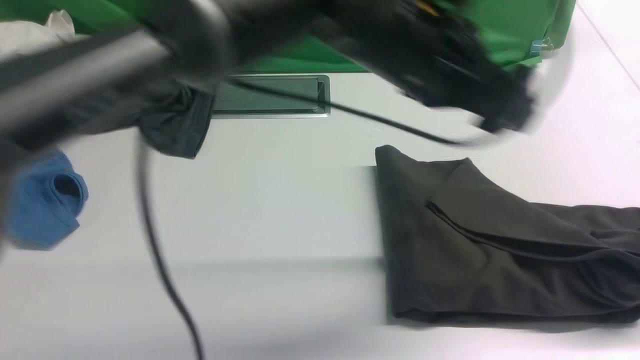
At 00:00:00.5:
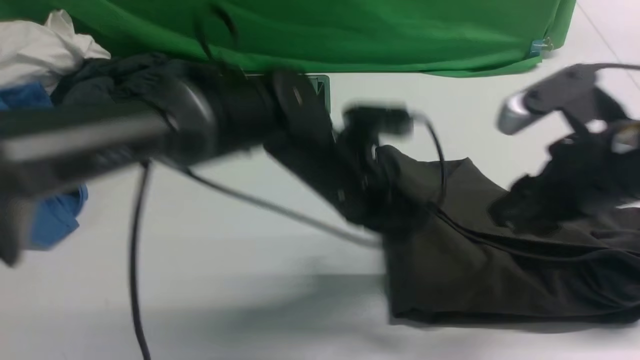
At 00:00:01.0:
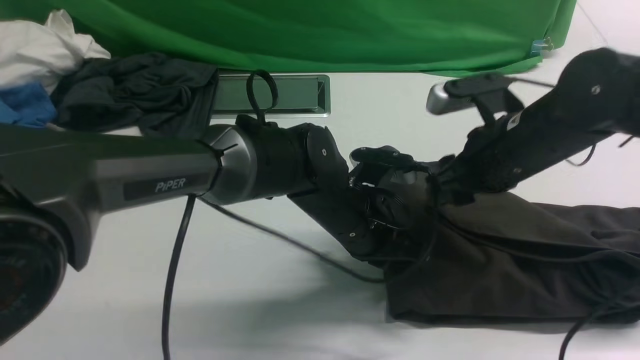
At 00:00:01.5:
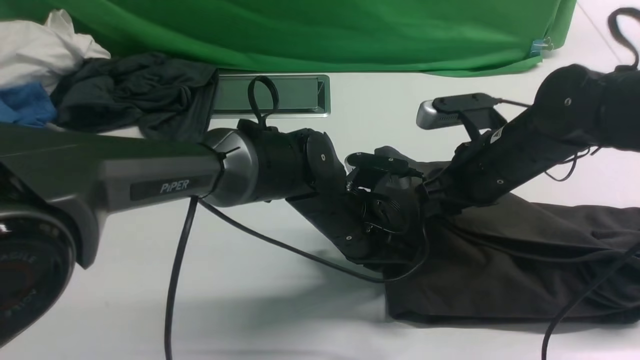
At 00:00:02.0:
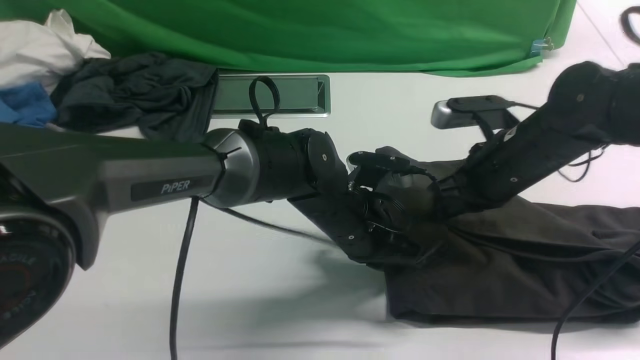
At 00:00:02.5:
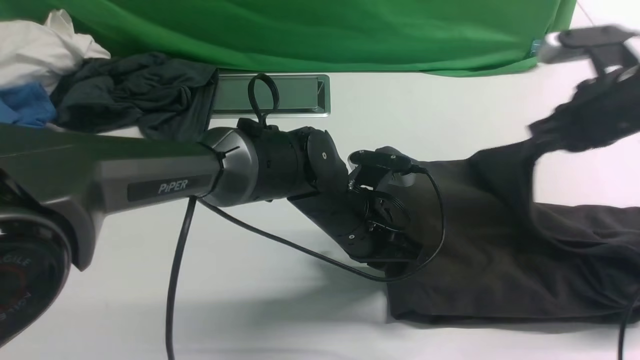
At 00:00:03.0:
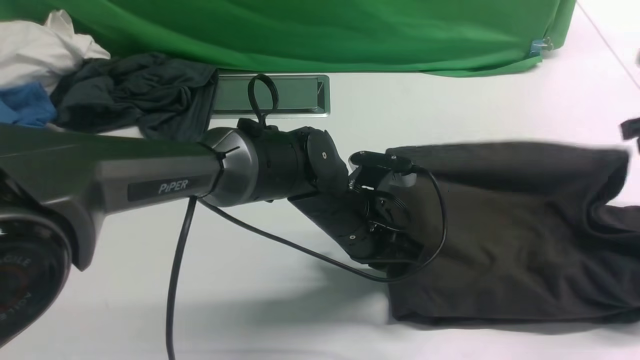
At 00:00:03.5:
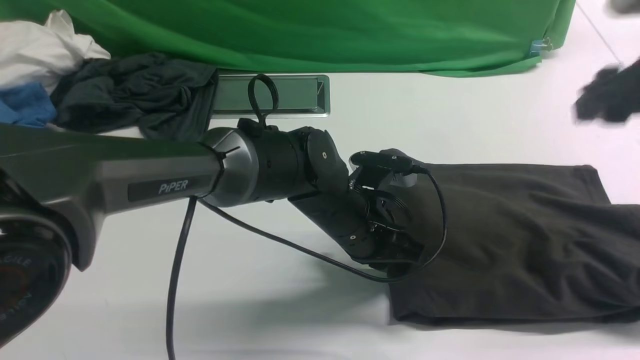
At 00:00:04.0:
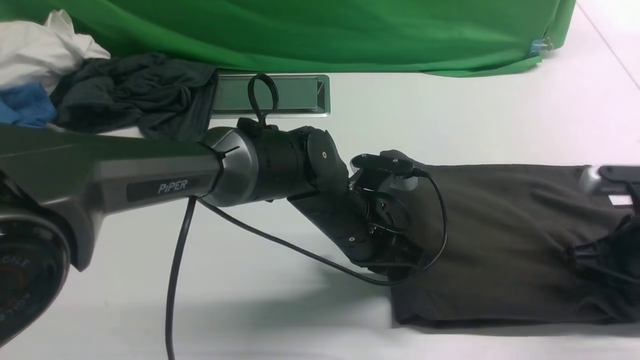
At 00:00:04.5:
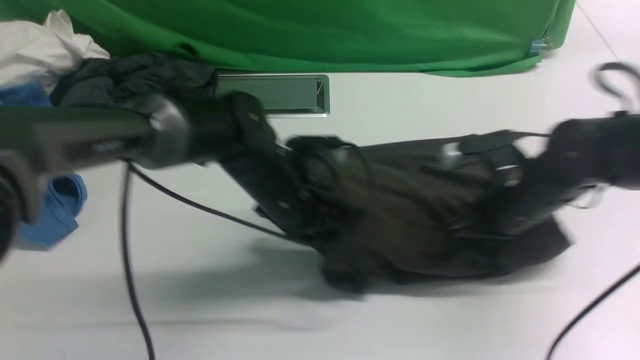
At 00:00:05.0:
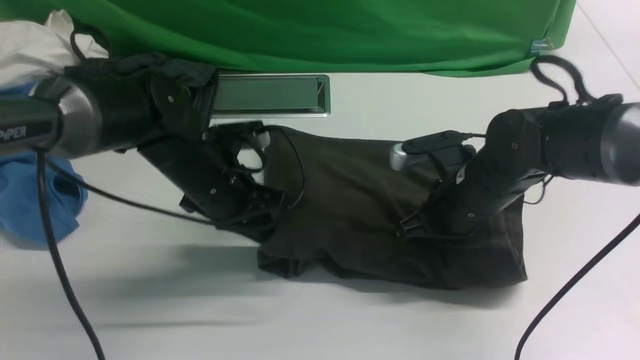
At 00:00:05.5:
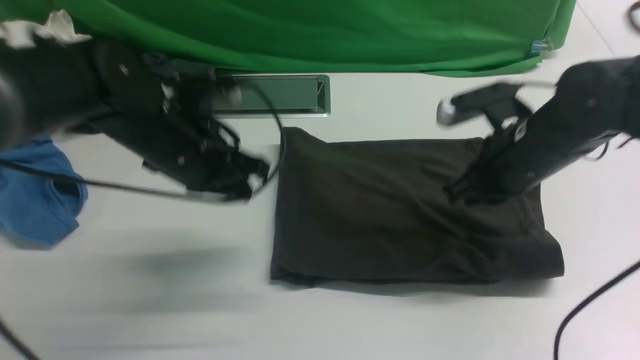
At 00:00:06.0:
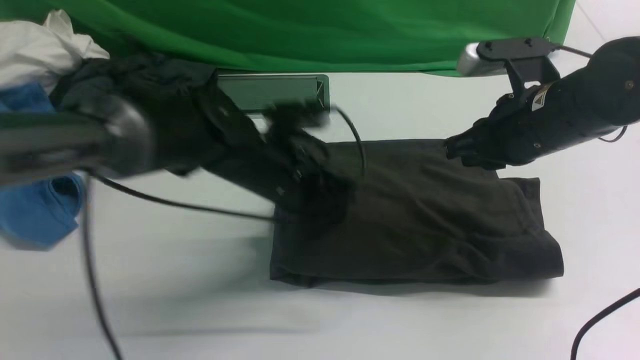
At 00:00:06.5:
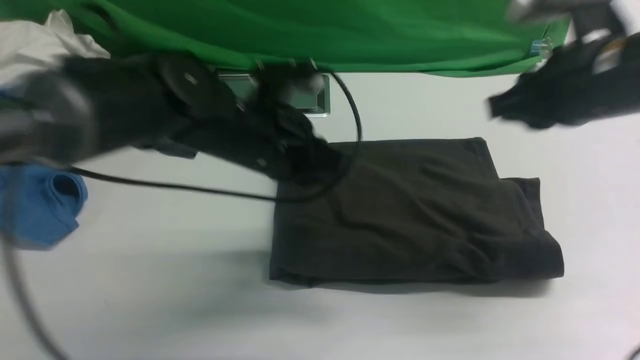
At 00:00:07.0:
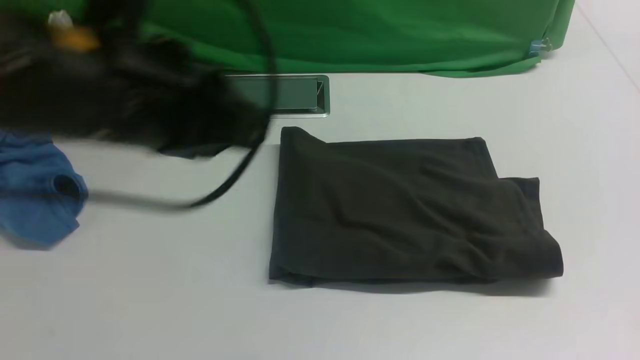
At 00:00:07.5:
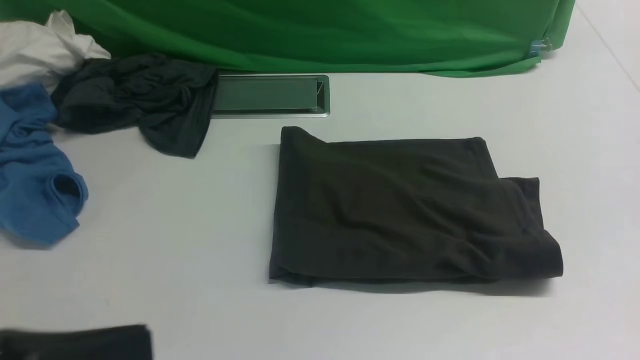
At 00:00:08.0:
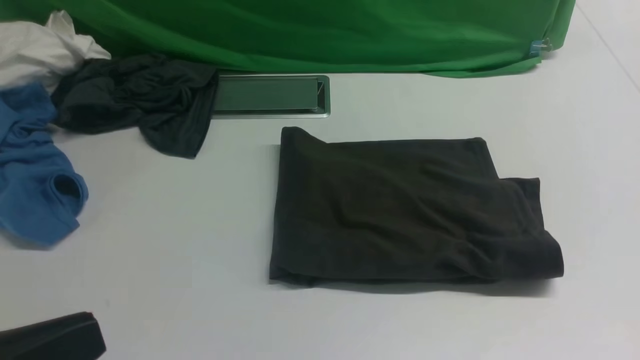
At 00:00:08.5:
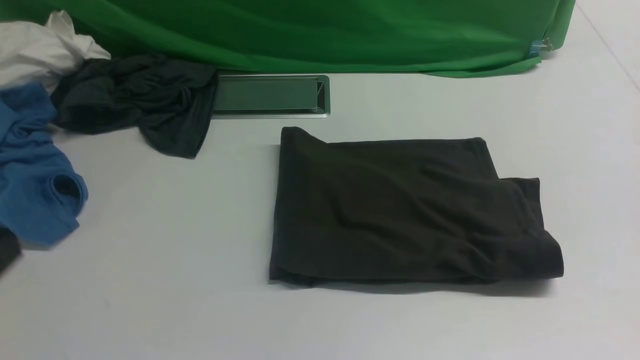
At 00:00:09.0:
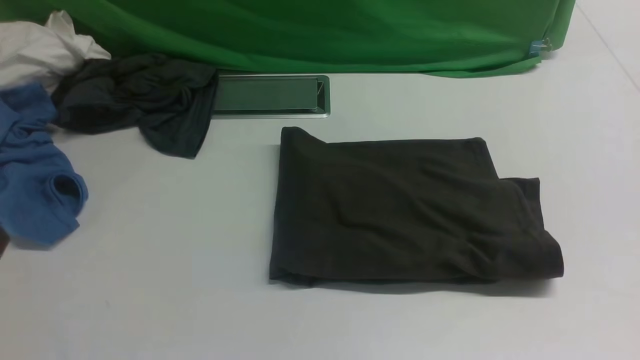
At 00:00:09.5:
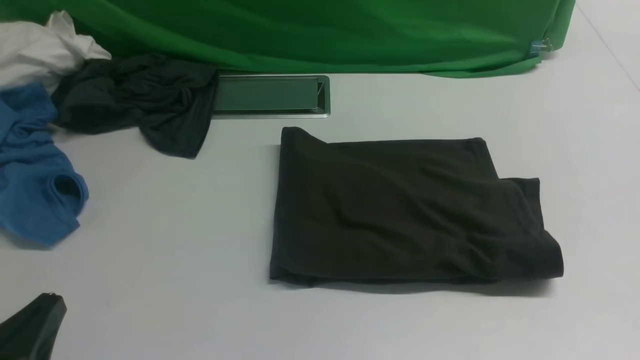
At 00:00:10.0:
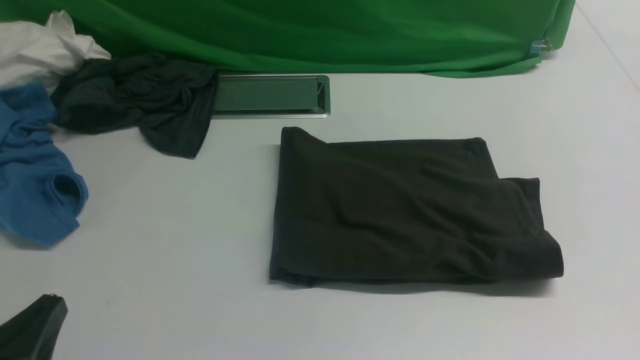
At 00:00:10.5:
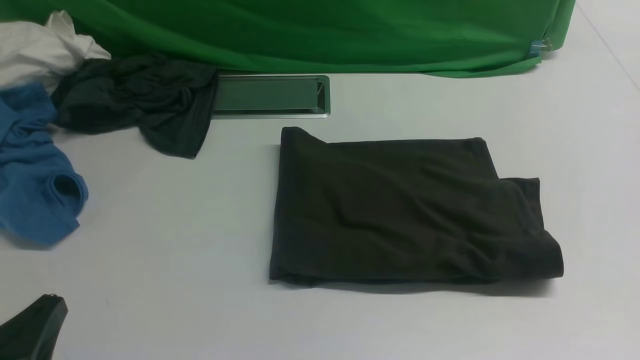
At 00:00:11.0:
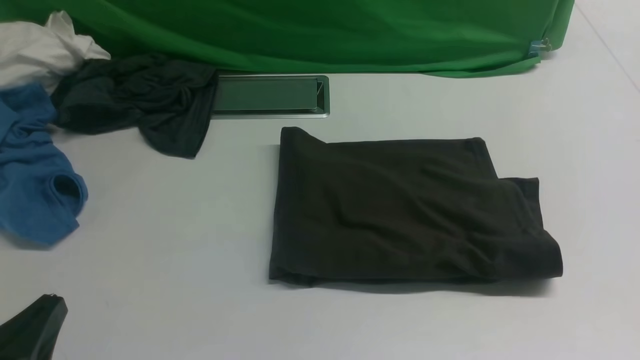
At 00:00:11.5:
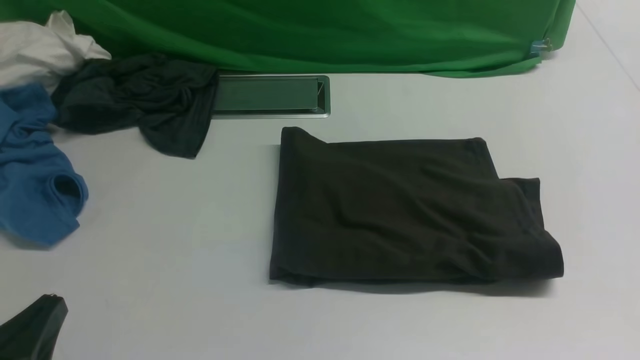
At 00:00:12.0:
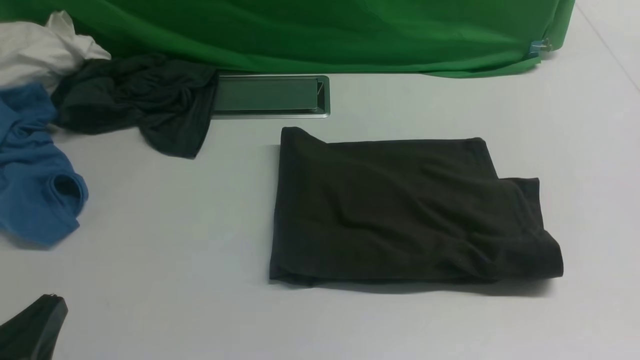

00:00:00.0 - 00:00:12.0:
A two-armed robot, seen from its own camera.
00:00:00.0 - 00:00:02.0: The left gripper shifts about 15 cm downward, and closes up. The right gripper is displaced downward and forward by approximately 30 cm, and opens and closes again.
00:00:02.0 - 00:00:04.0: The right gripper moves to the right and backward, about 15 cm, and opens, then closes again.
00:00:04.0 - 00:00:06.0: The right gripper goes some 15 cm to the left, upward and forward. The left gripper shifts roughly 10 cm to the left.
00:00:06.0 - 00:00:08.0: The right gripper moves backward, some 25 cm. Meanwhile the left gripper heads backward, upward and to the left, covering roughly 40 cm.
00:00:08.0 - 00:00:10.0: The left gripper goes roughly 15 cm downward.

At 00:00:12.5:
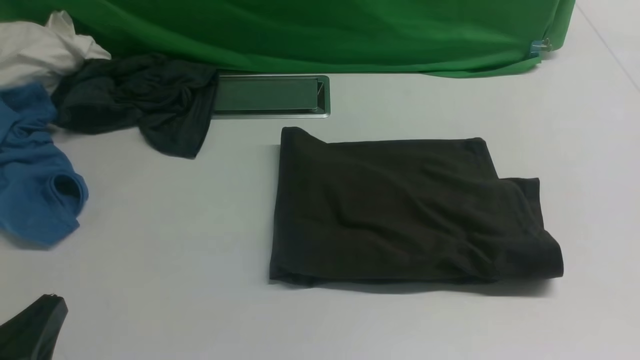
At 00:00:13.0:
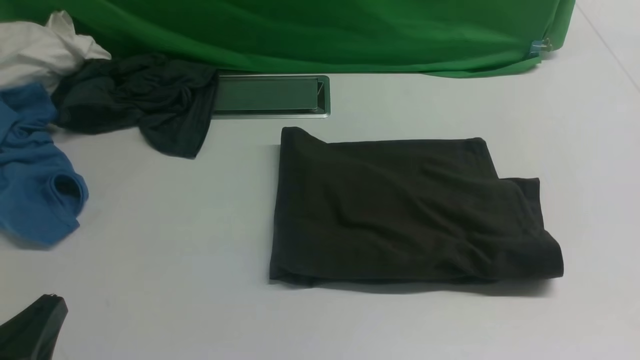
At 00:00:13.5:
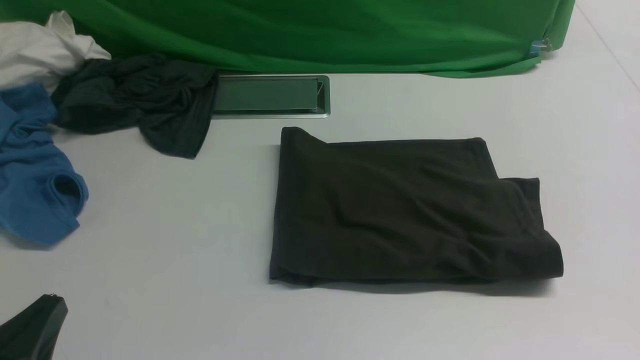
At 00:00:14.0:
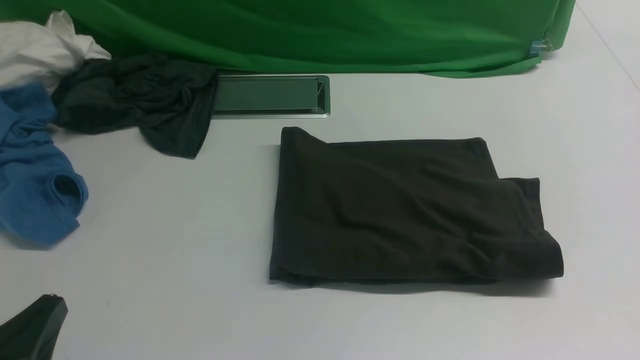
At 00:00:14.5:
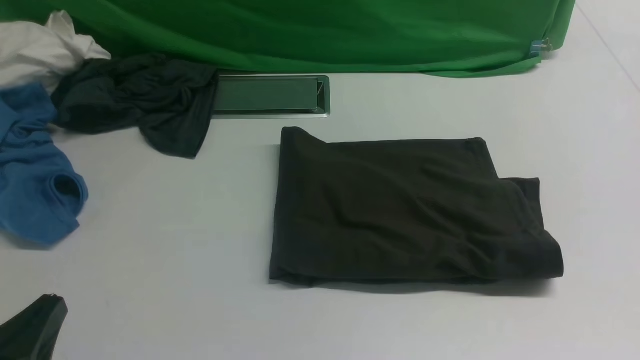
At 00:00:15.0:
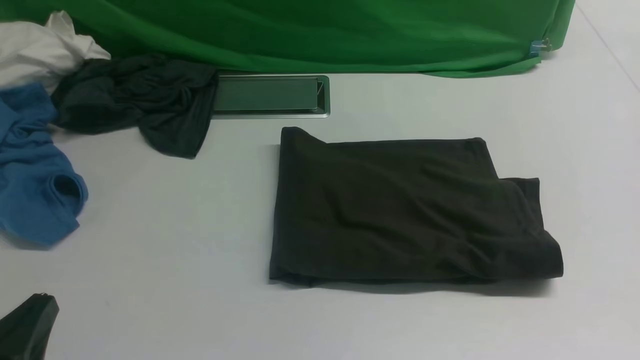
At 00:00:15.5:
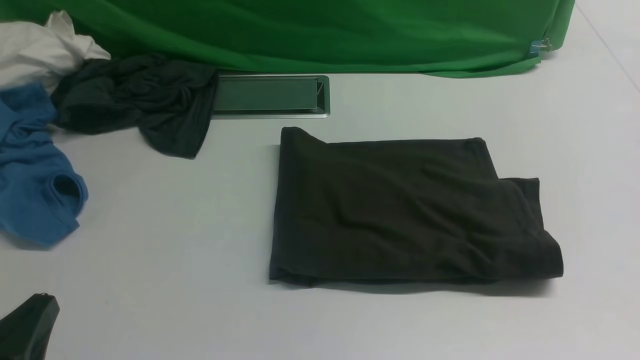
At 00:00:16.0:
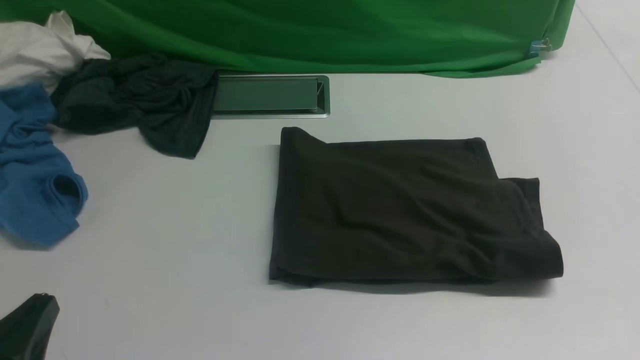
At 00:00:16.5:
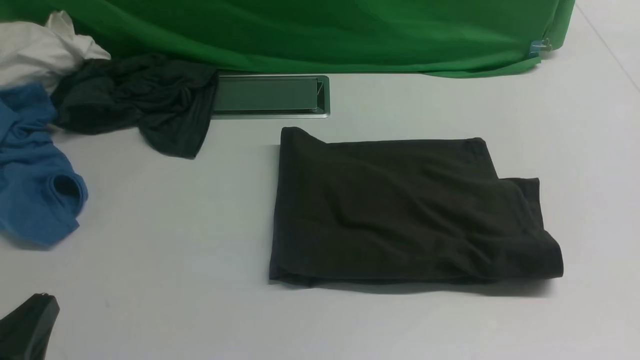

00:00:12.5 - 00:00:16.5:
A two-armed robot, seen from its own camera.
00:00:12.5 - 00:00:16.5: Neither gripper changes place.

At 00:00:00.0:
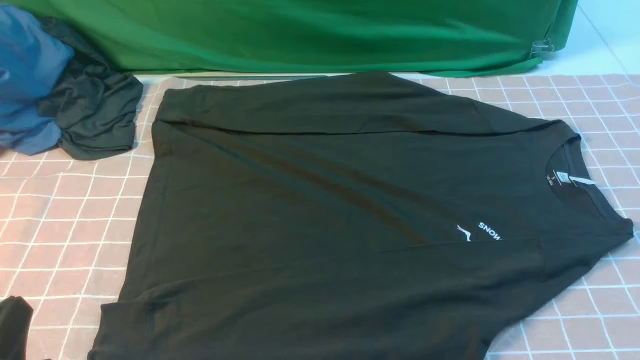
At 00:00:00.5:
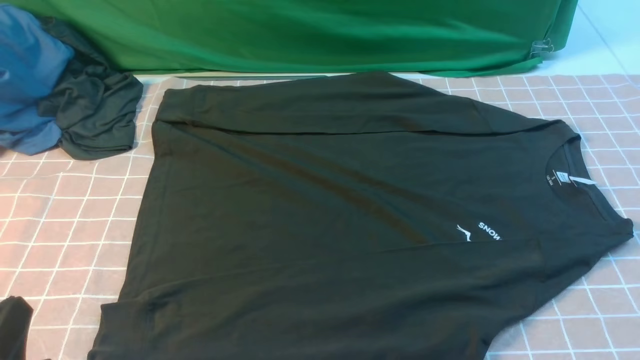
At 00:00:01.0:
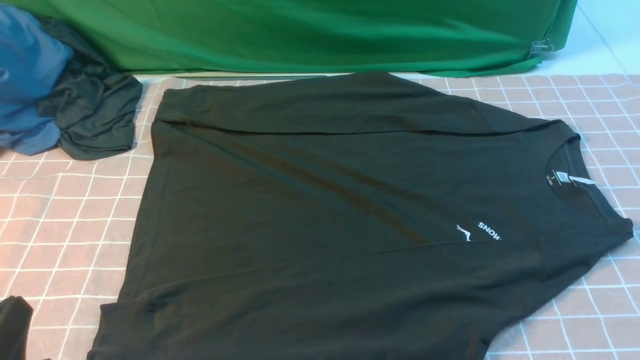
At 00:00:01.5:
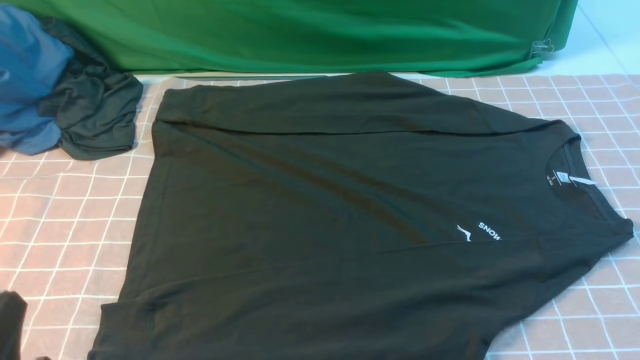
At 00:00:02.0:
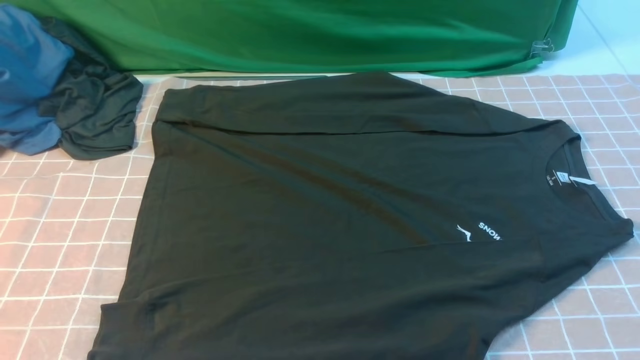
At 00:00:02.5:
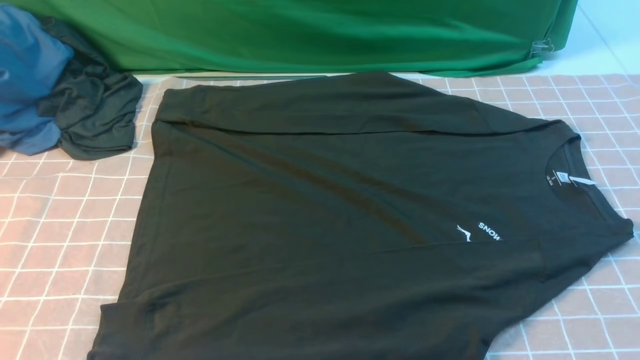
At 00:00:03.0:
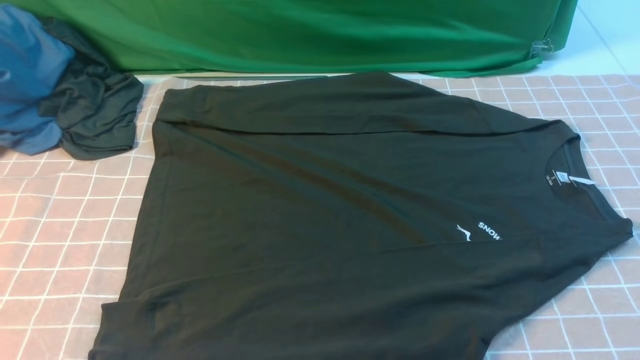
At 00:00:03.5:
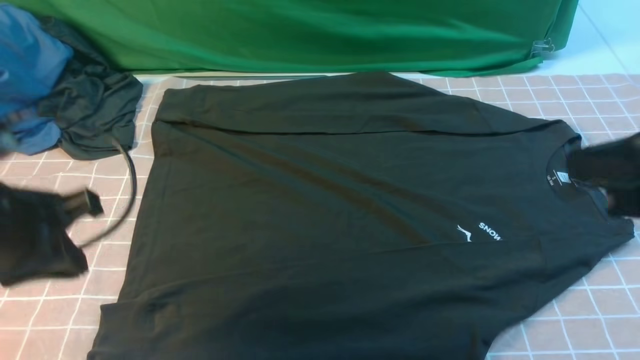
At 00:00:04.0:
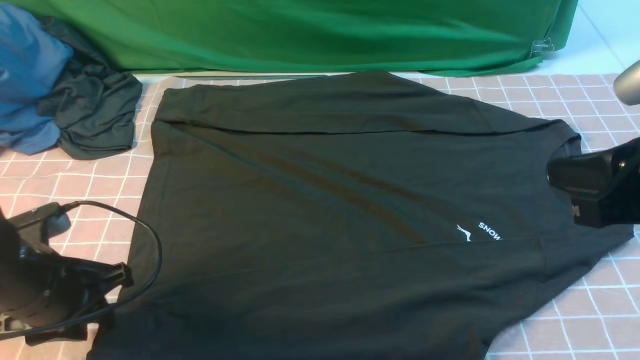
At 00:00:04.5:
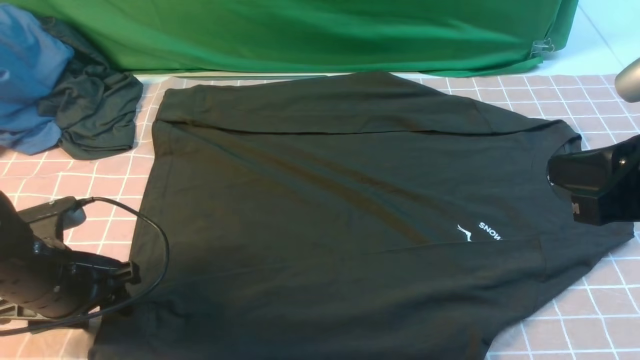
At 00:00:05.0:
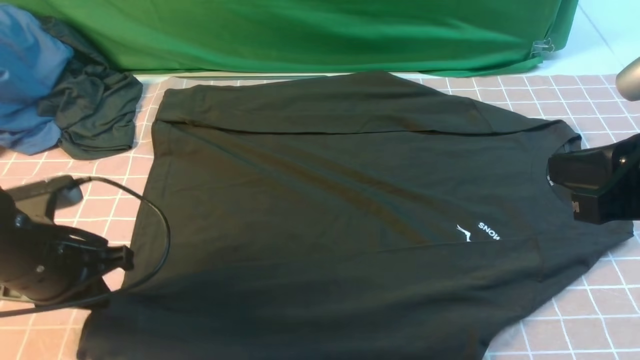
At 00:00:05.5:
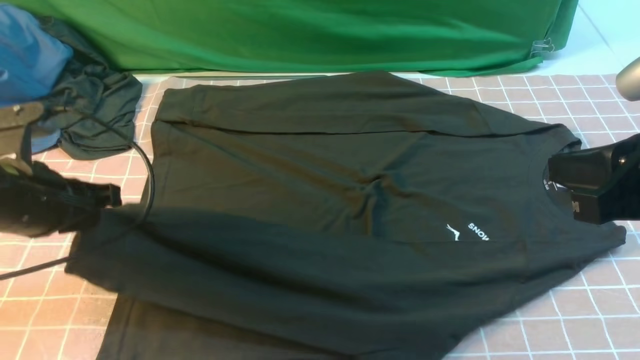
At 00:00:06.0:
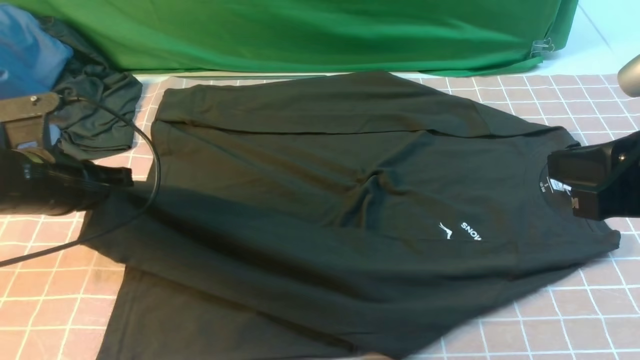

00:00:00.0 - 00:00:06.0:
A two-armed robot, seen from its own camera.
Step, 00:00:00.0 - 00:00:05.0: use the left arm to clamp the cuff closest to it.
00:00:02.0 - 00:00:04.0: The right gripper goes roughly 20 cm forward, upward and to the left, and closes up; the left gripper is displaced forward by about 15 cm, reaches approximately 15 cm upward, then returns, and opens its fingers.
00:00:04.0 - 00:00:06.0: The left gripper is displaced forward by some 5 cm, and closes.
